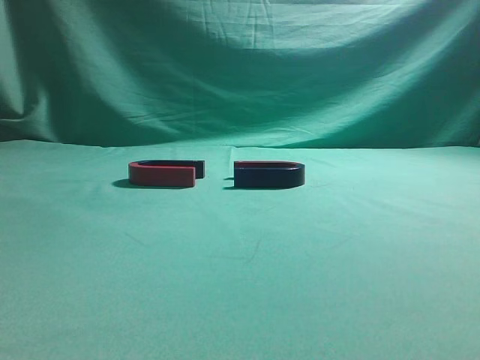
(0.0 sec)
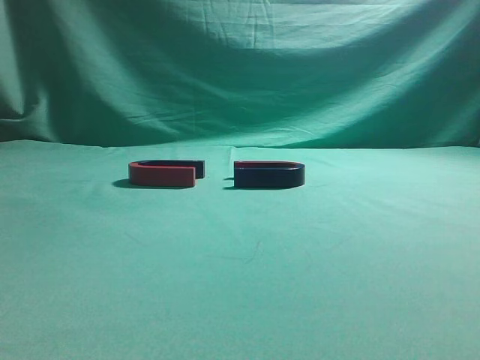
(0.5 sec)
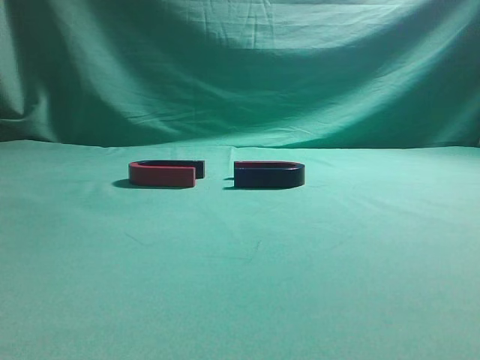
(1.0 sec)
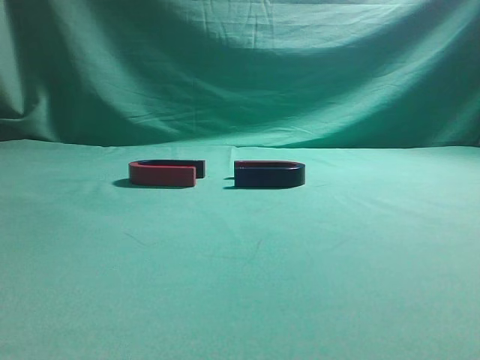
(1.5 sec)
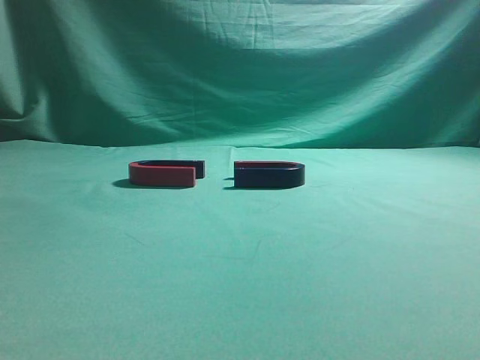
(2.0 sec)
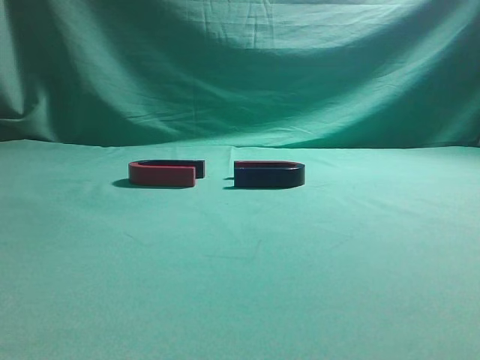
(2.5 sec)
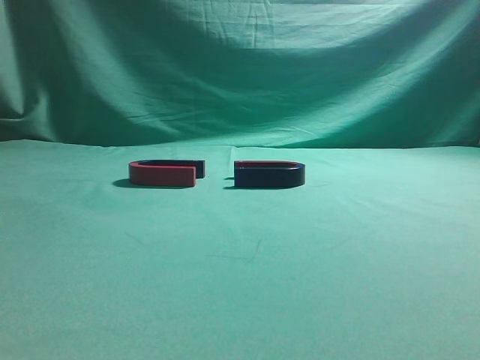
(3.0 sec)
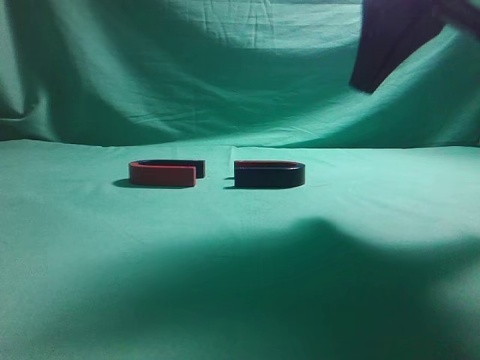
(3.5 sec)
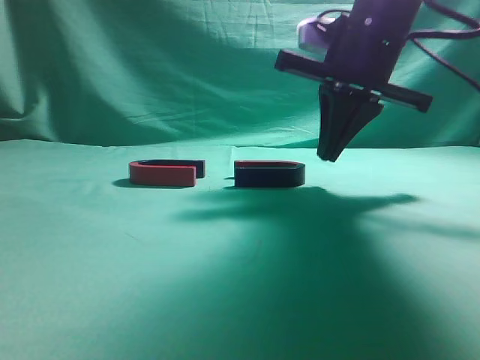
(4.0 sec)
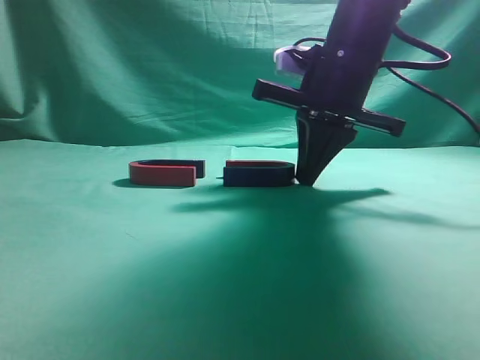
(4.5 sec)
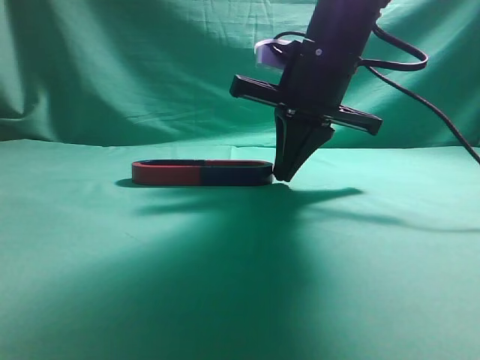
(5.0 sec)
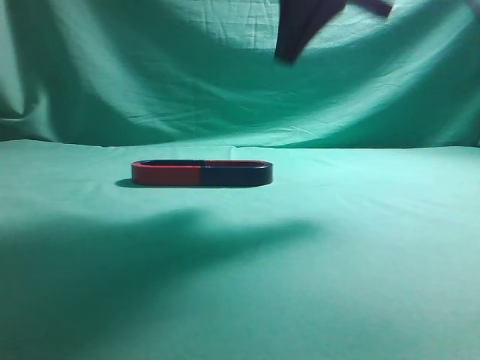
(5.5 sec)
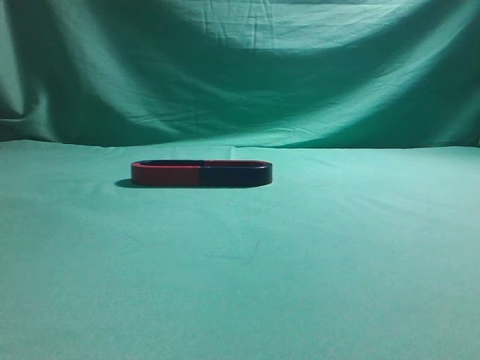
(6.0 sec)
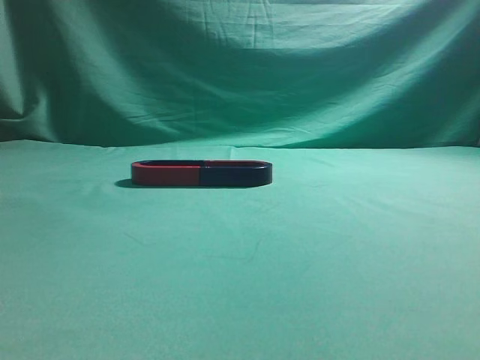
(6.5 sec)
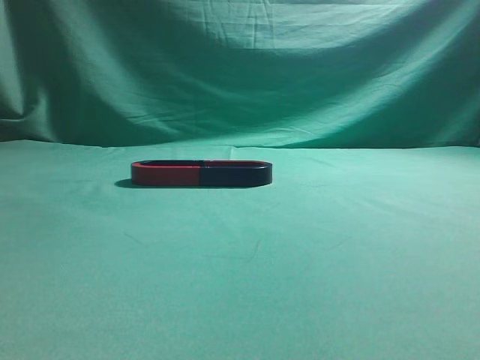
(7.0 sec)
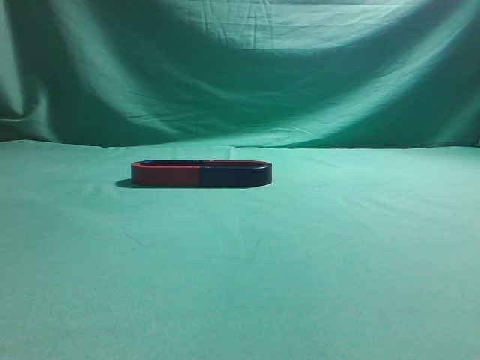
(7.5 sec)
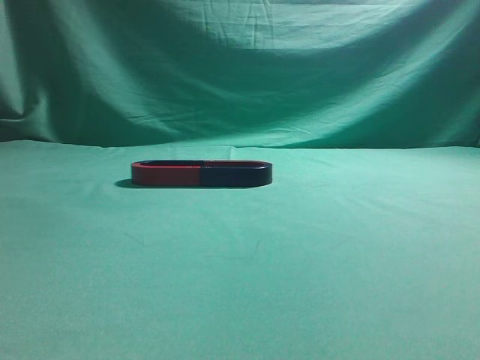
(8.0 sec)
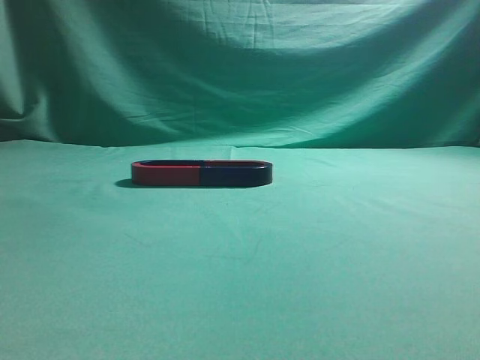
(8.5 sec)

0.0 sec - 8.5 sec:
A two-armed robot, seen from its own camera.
Task of the whole recording: push the magnet on the table from its original position to another position.
Step, 0.0 sec - 5.0 sec: Push the magnet on the right to connect the magnet on the left.
2.0 sec - 4.0 sec: The right gripper is displaced forward and to the left by roughly 35 cm.
4.0 sec - 6.5 sec: The right gripper heads backward, upward and to the right, covering roughly 35 cm.
